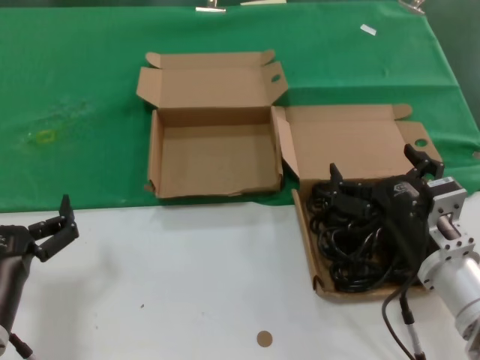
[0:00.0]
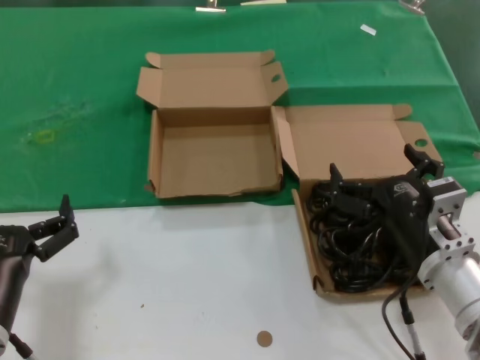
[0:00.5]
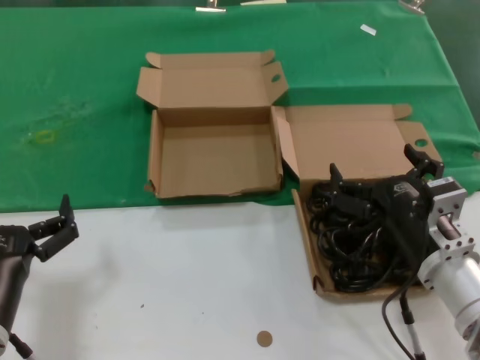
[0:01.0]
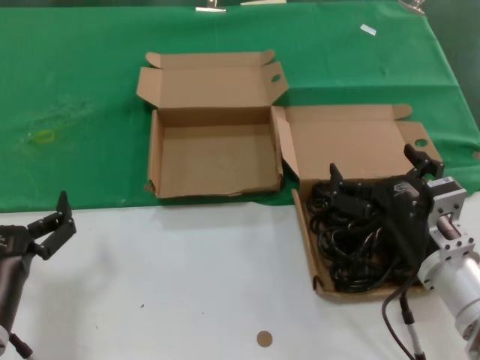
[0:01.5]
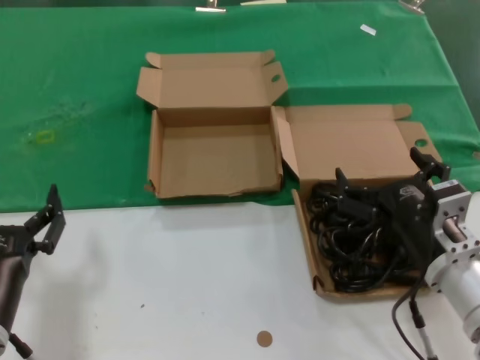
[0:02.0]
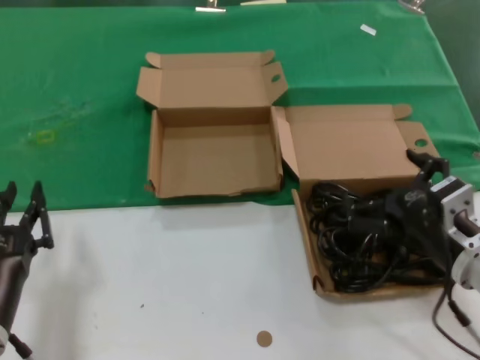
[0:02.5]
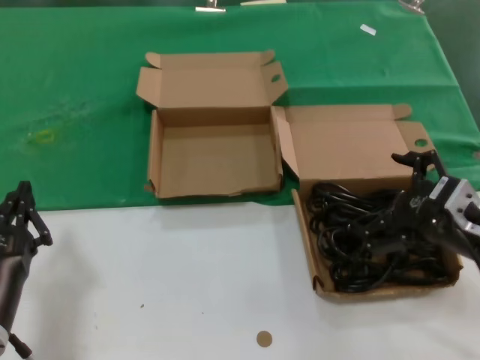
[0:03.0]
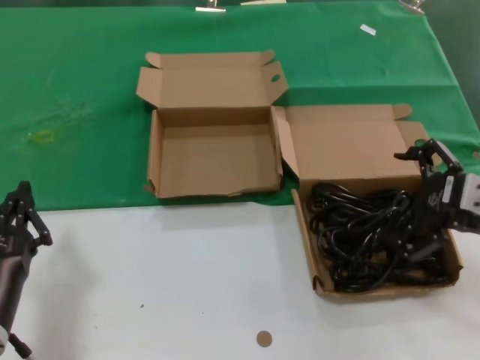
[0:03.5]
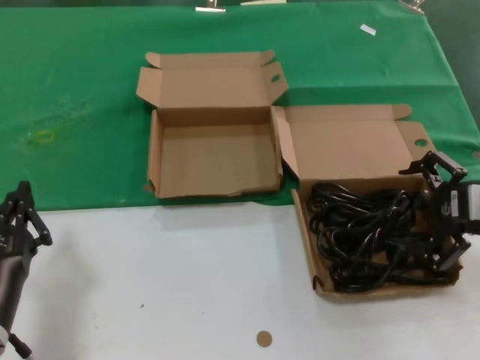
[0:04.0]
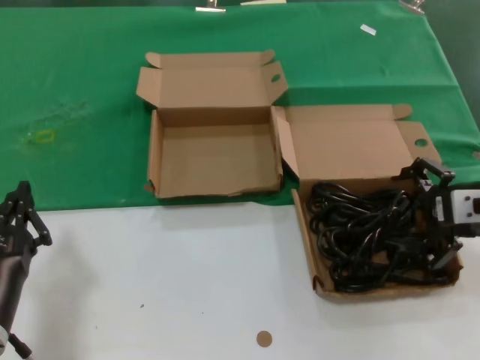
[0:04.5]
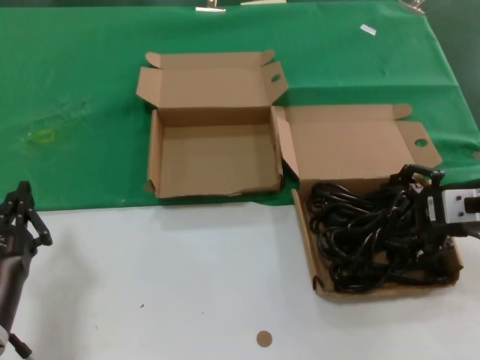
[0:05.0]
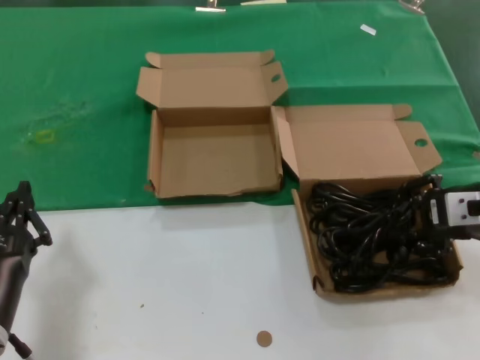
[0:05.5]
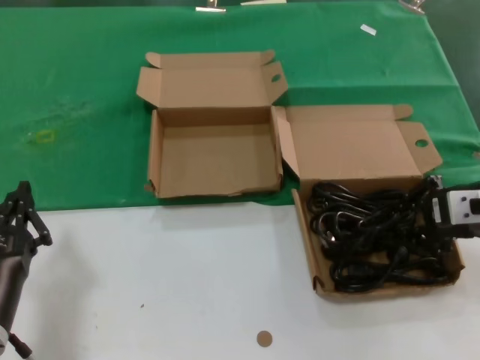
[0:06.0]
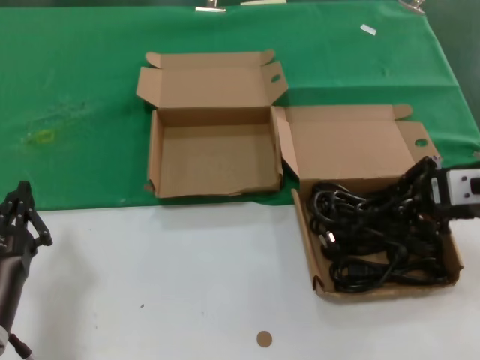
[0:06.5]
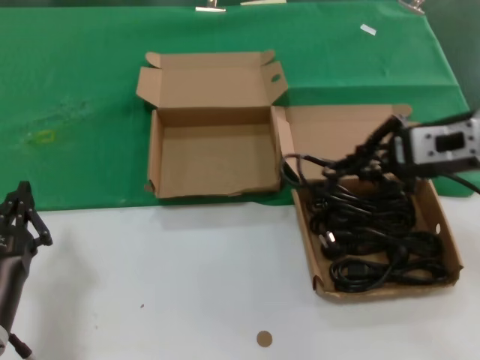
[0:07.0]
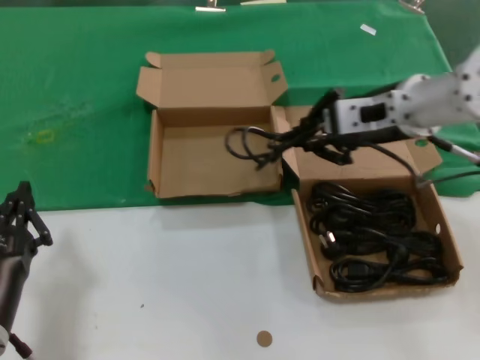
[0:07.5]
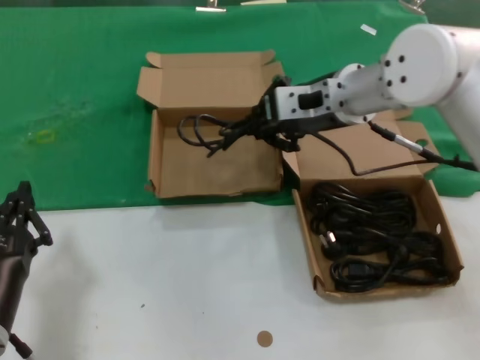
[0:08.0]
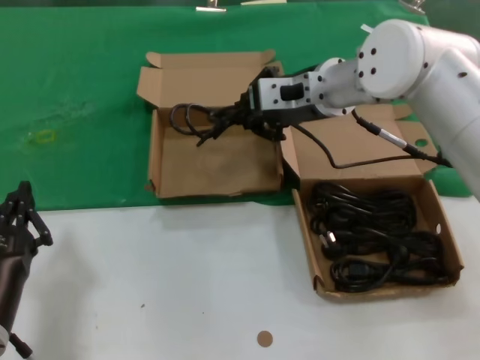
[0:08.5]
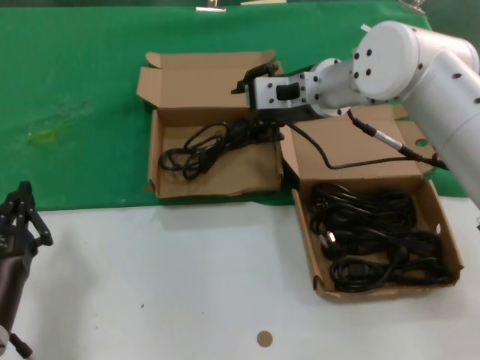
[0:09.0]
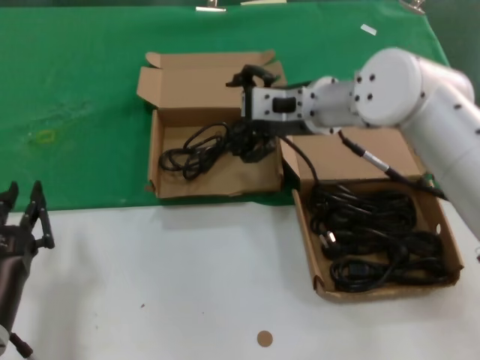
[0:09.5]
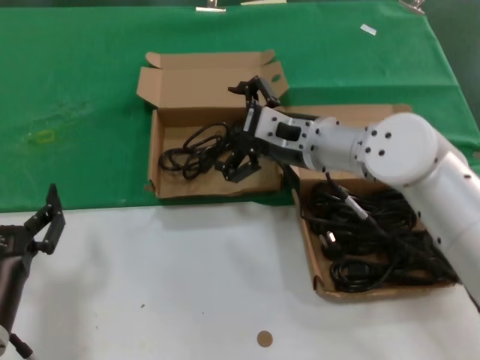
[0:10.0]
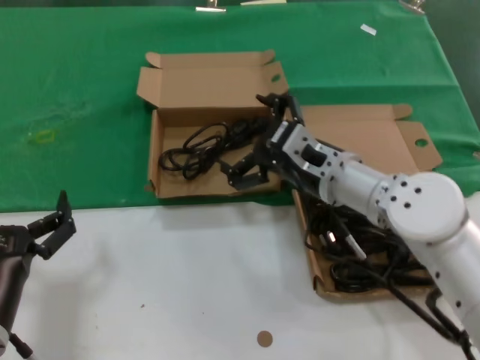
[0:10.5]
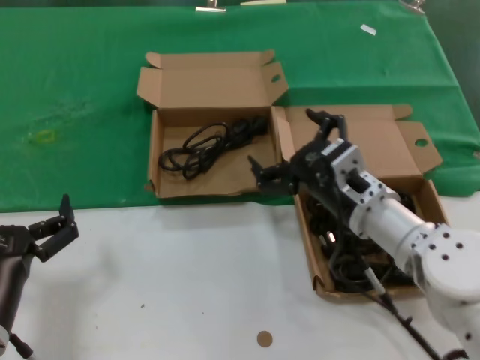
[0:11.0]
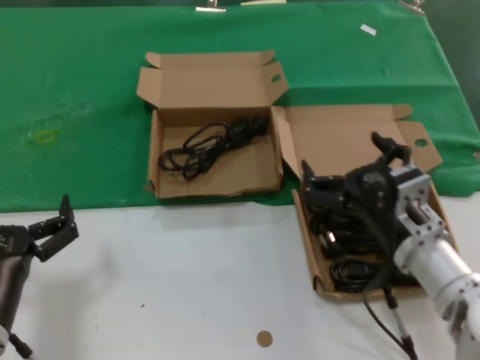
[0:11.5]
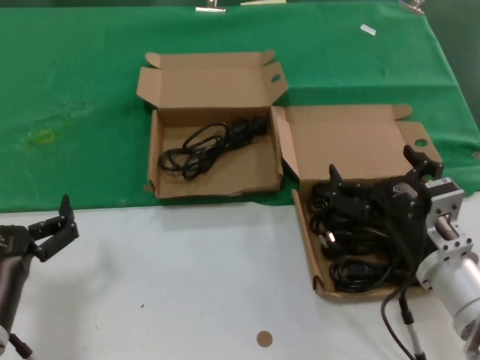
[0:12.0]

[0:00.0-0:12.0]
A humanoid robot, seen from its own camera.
Task of the whole recording: take the parts from the box containing them and put them into an empty box.
Step, 0:00.0 to 0:05.5: Grasp the data cable.
Step, 0:06.5 to 0:08.5: Place the data cable in the another box.
0:00.0 to 0:02.0: The two hands keep their place.
0:02.0 to 0:04.0: The right hand goes roughly 15 cm upward and to the right.
0:04.0 to 0:06.0: There are only small adjustments of the hands.
0:06.0 to 0:08.0: The right hand is displaced to the left, forward and upward by about 25 cm.
0:08.0 to 0:10.0: The right hand travels downward by some 10 cm.
0:10.0 to 0:12.0: The right hand goes roughly 25 cm backward, downward and to the right.

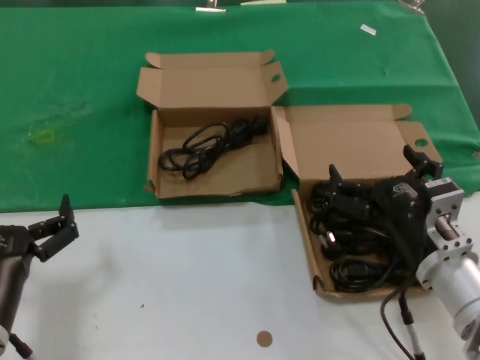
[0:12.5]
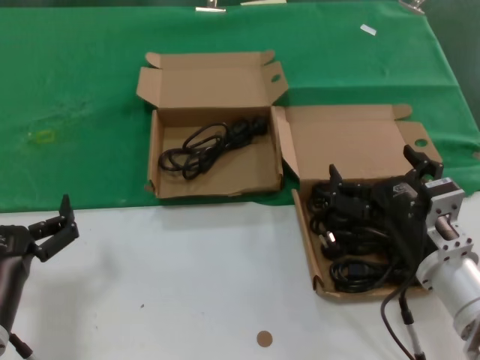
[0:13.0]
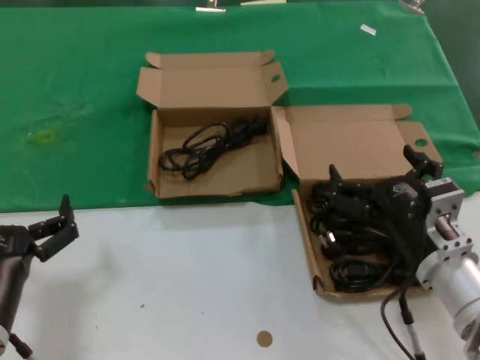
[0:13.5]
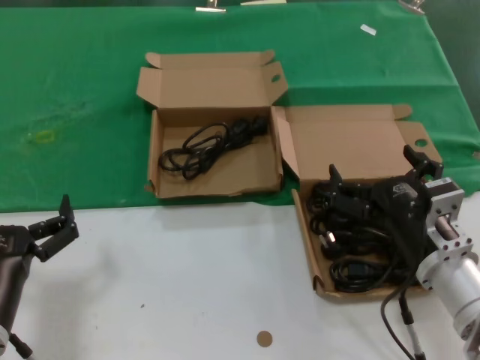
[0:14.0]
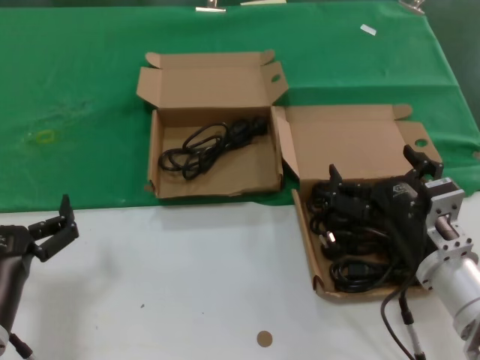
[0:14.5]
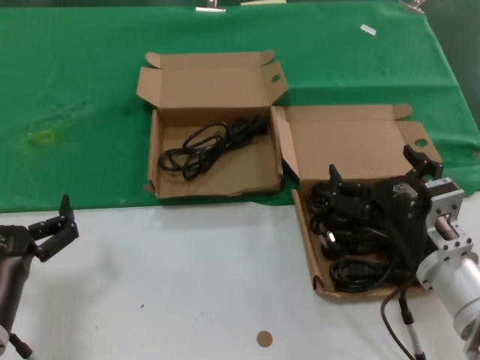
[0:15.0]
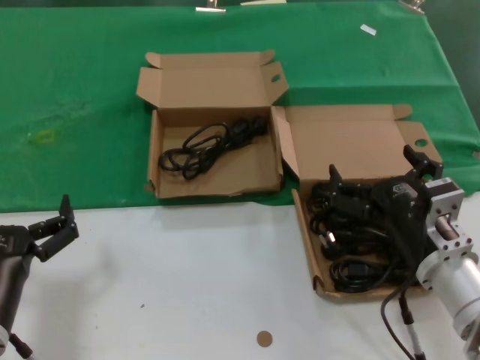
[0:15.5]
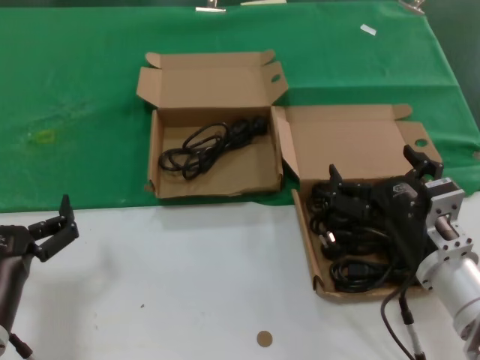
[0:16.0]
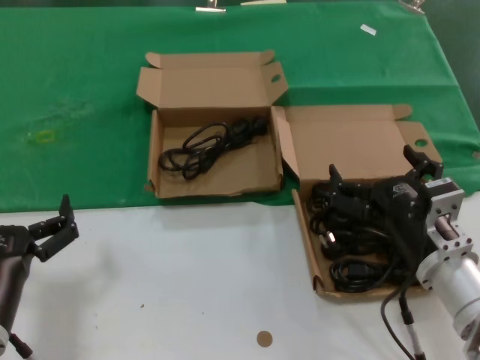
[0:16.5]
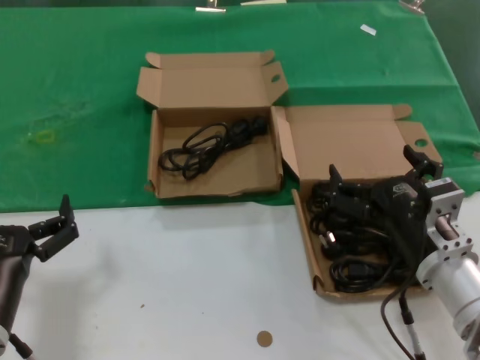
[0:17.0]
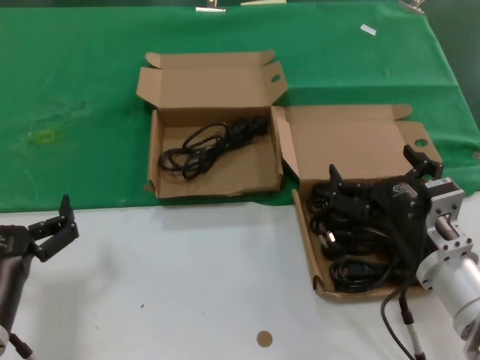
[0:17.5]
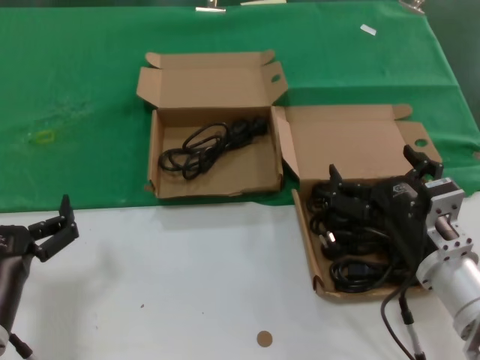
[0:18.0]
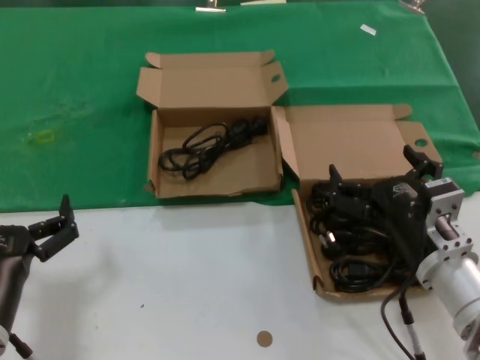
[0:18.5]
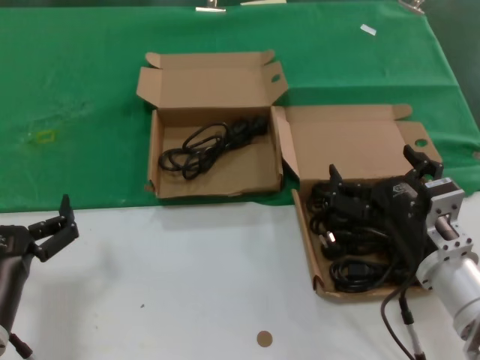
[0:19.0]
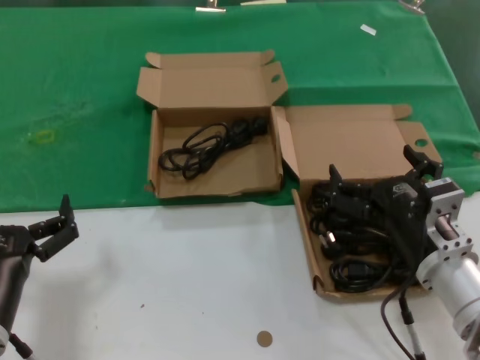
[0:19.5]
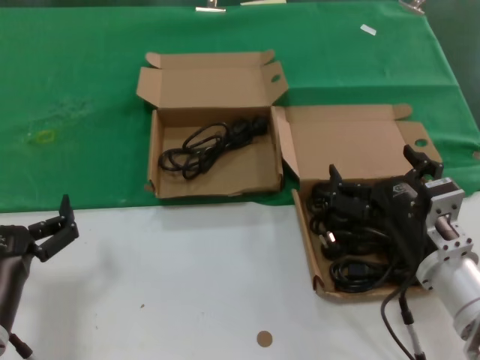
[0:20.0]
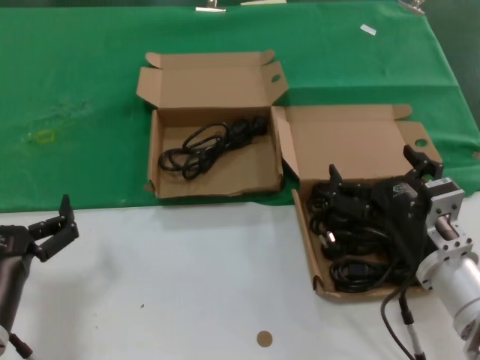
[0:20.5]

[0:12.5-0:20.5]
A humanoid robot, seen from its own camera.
Task of the whole recording: take the parts from the box containing them and put them into an empty box.
0:12.5 to 0:20.5: Both hands stay about where they are.

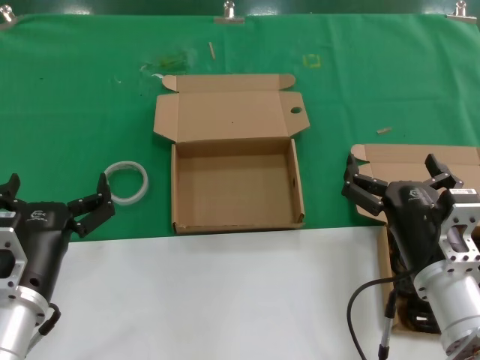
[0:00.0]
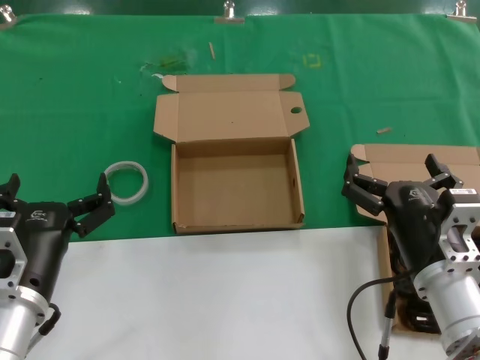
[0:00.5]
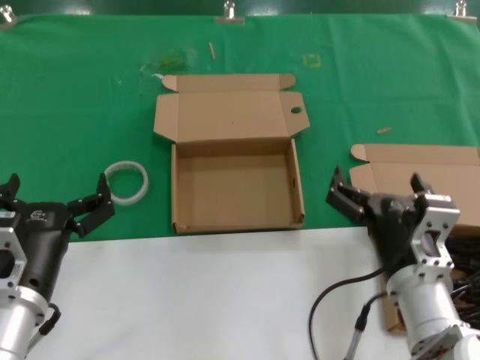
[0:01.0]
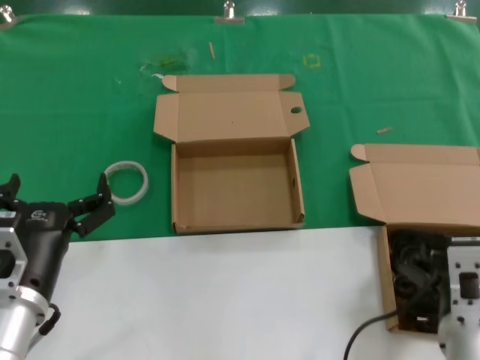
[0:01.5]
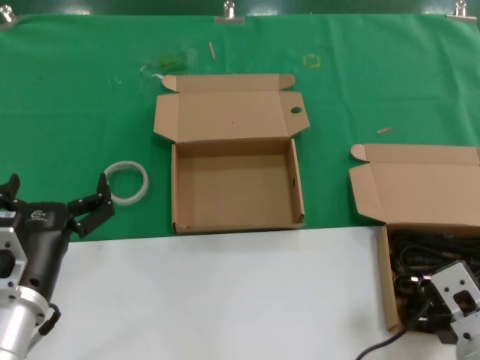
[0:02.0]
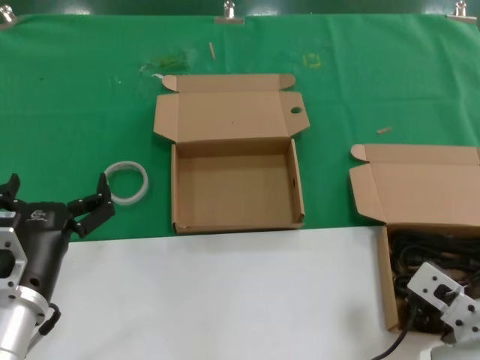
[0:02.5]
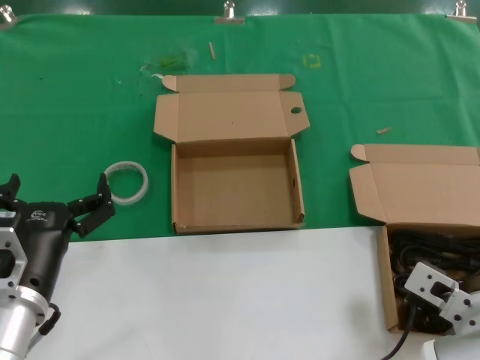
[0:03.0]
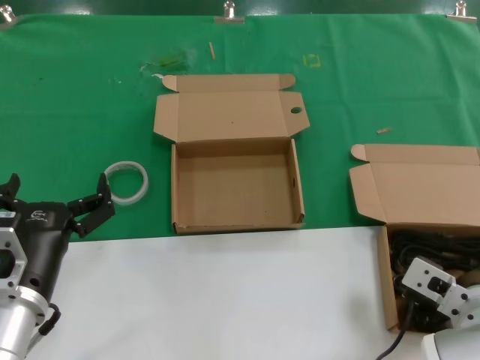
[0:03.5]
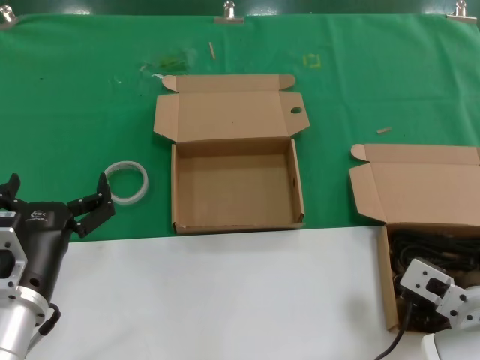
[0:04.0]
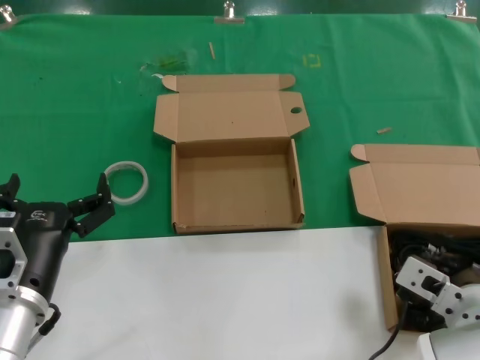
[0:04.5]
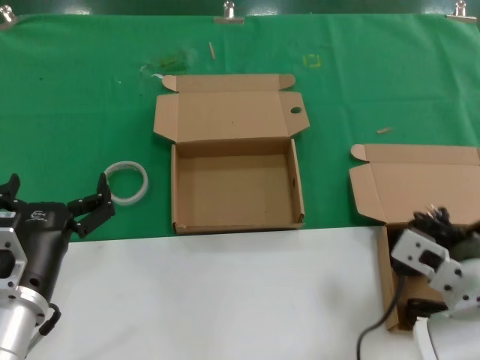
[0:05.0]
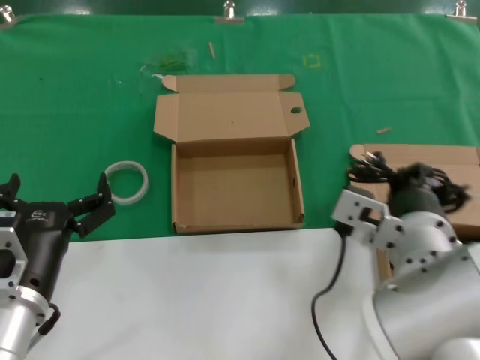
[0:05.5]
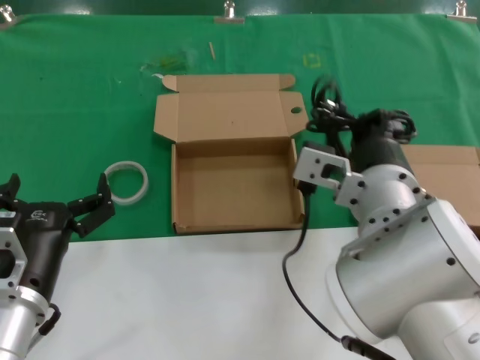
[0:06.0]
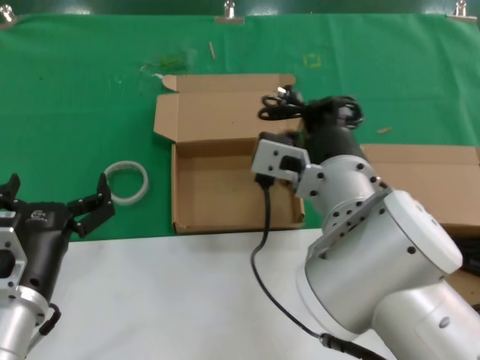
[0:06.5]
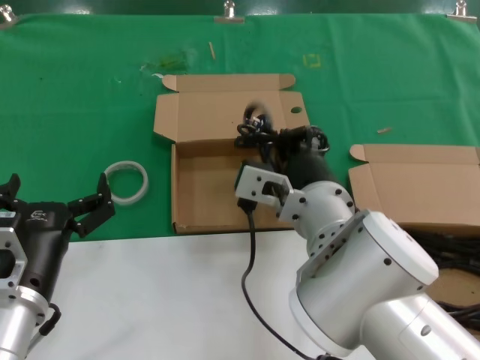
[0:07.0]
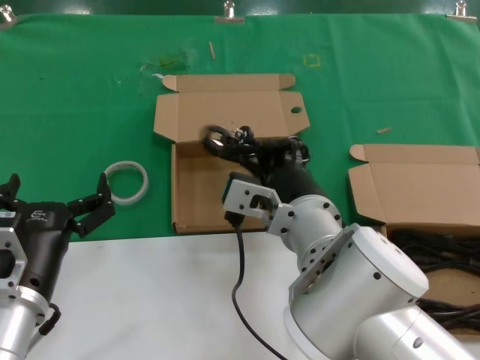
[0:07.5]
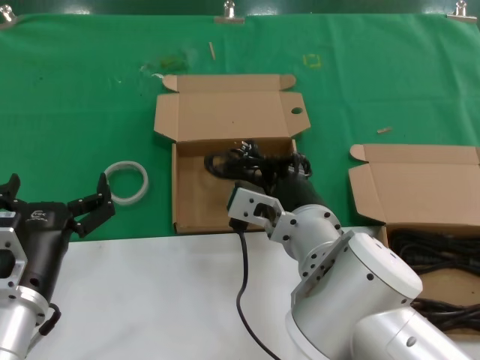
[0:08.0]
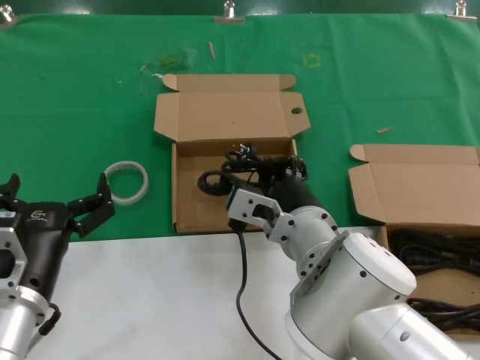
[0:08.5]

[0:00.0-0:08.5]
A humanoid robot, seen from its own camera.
Task of the whole recording: take the parts from the box containing them and put them into an empty box.
Step, 0:00.0 to 0:04.0: Grasp the data cable.
0:00.0 to 0:02.0: The right hand travels backward by some 5 cm.
0:02.0 to 0:04.0: The right hand heads forward, covering about 5 cm.
0:04.0 to 0:06.5: The right hand is displaced to the left and upward by about 20 cm.
0:06.5 to 0:08.5: The right hand travels downward by some 10 cm.
